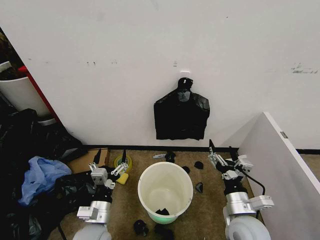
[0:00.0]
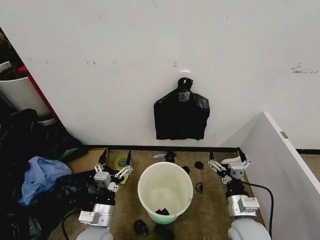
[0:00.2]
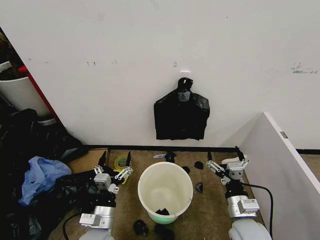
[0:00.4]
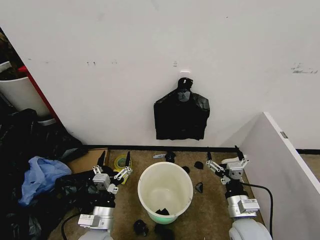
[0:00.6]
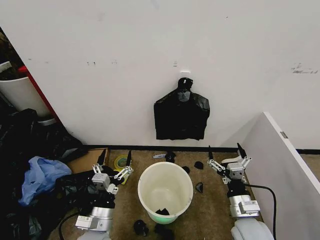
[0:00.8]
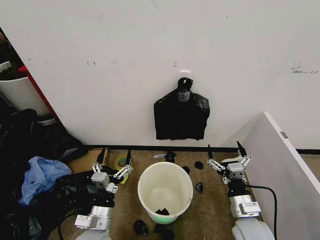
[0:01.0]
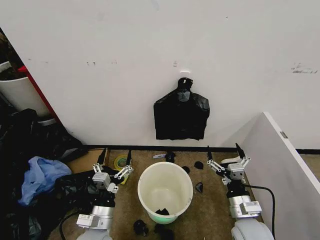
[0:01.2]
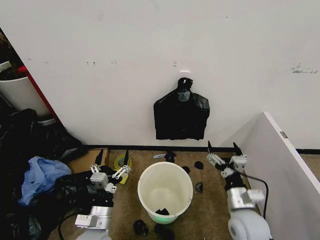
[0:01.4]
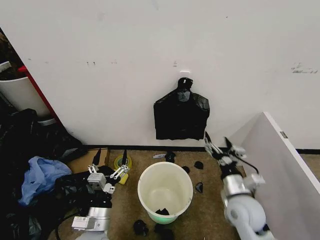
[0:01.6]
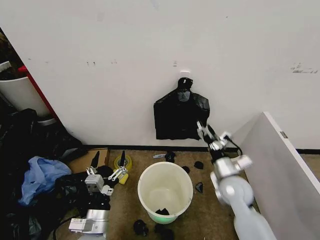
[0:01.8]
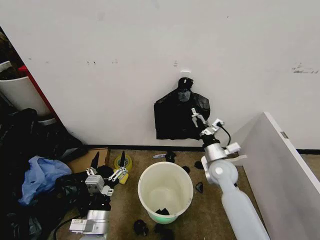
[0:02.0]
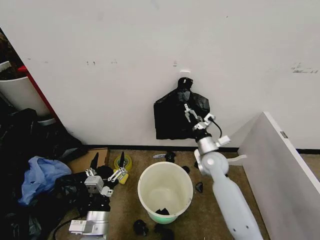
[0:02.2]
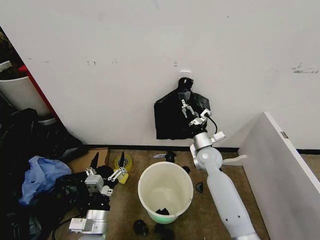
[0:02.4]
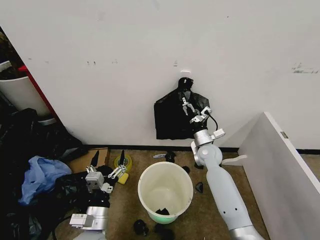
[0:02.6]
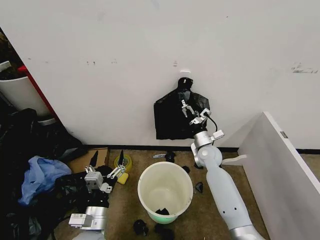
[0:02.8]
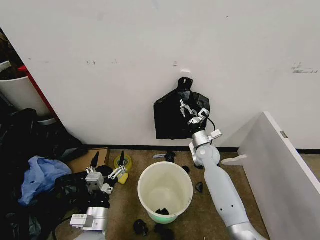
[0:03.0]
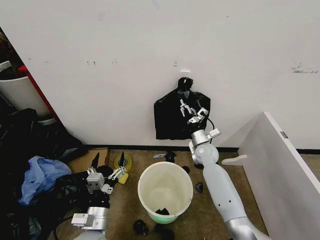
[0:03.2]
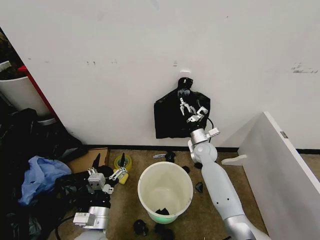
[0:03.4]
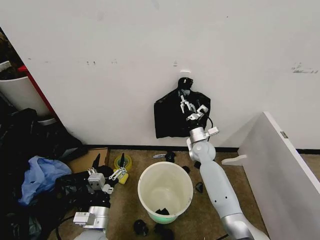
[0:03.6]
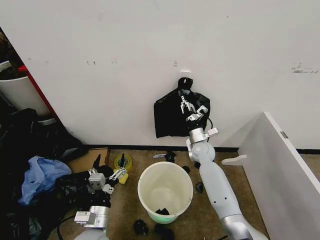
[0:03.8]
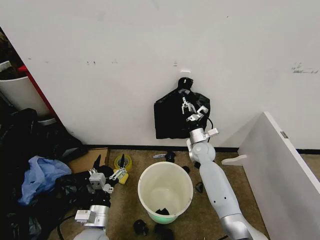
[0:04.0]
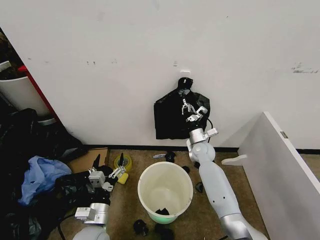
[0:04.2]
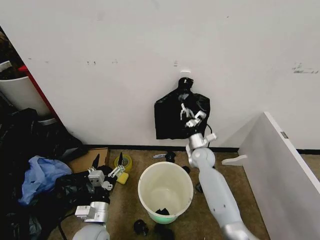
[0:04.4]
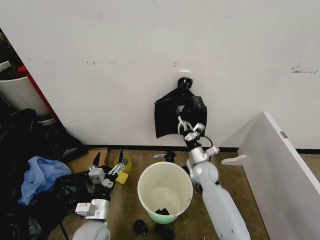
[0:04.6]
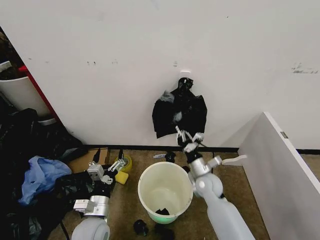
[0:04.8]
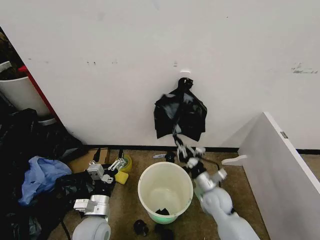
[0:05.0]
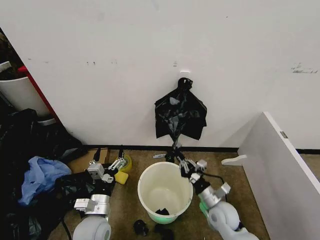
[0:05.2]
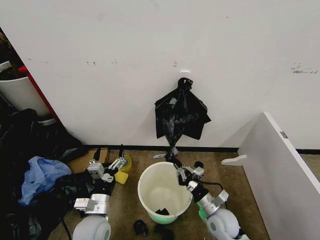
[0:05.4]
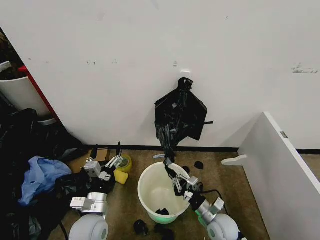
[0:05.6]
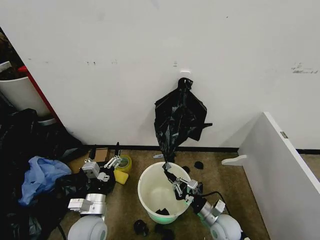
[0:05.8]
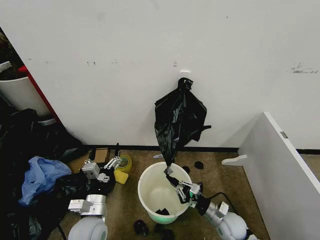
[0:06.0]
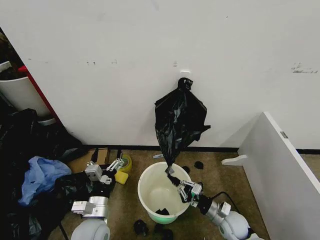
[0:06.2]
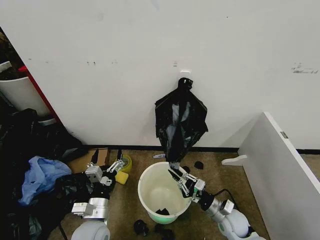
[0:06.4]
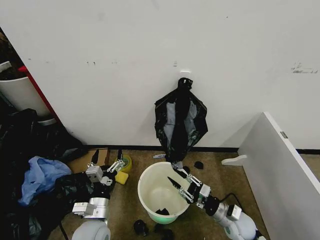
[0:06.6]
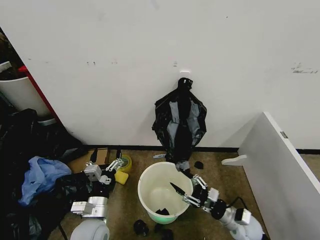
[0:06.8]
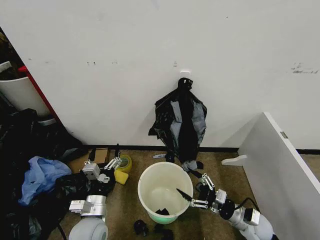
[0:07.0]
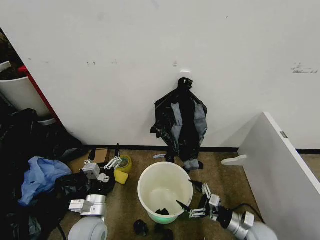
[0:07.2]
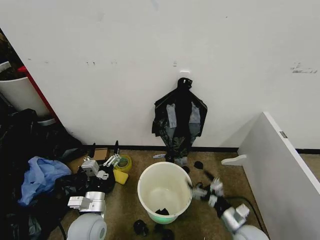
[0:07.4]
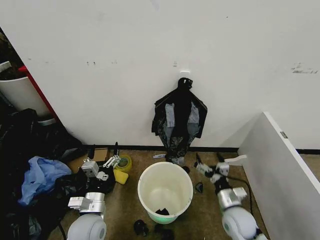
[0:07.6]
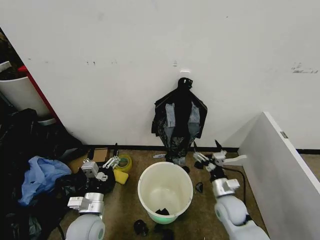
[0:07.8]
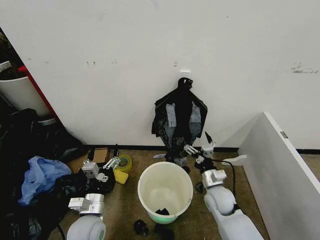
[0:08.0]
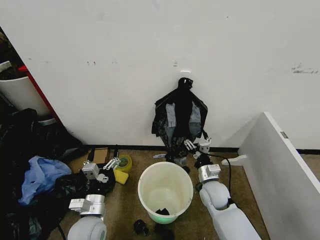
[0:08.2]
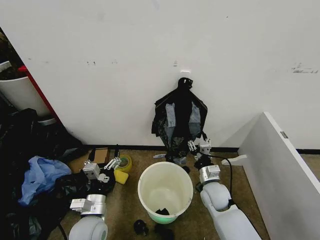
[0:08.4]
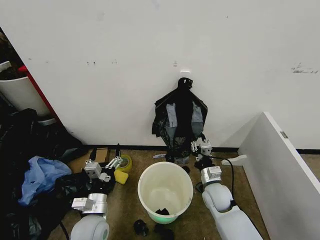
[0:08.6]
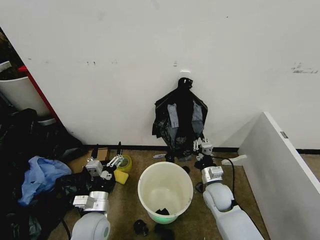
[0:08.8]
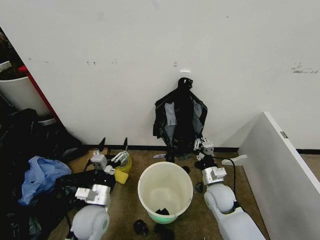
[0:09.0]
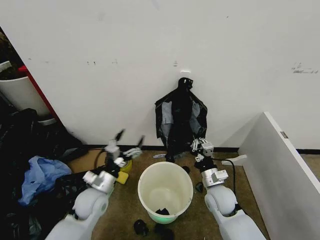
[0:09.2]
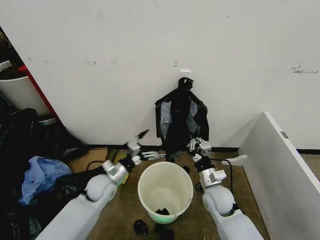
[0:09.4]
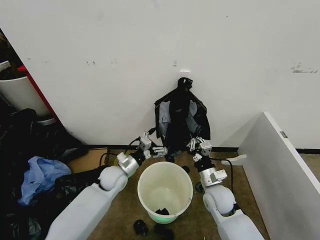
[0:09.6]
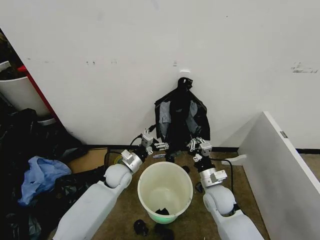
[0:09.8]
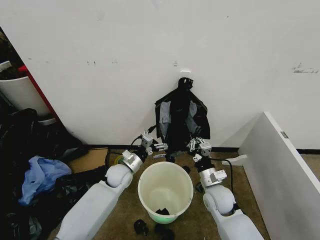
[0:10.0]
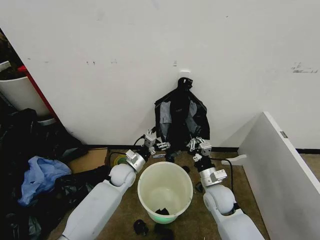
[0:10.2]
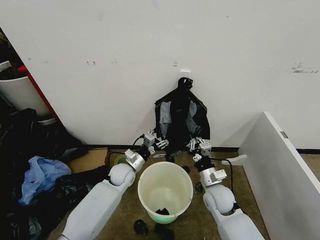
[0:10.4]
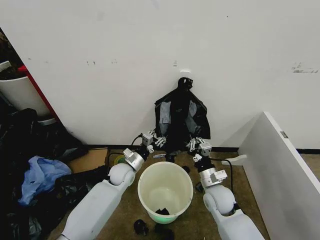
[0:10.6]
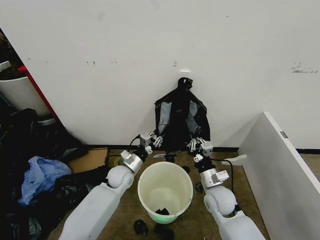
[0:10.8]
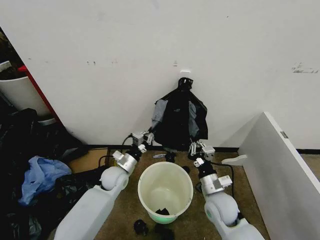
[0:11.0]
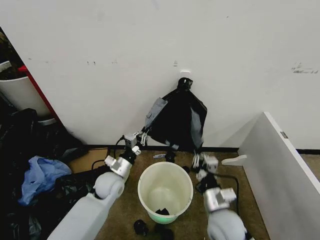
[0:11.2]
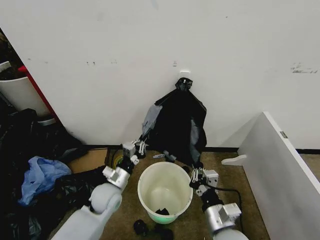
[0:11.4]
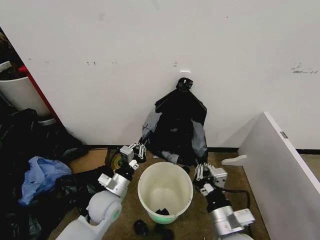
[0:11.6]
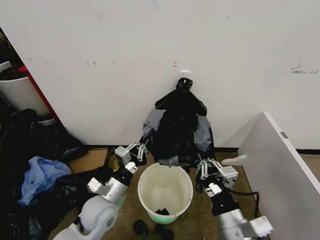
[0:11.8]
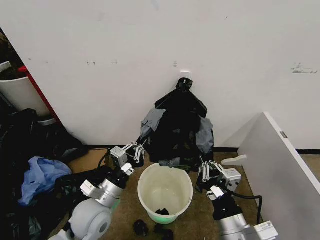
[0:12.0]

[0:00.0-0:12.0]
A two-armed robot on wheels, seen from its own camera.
Task of the whole recording: Place the garbage bag over the trash bin.
0:01.6 to 0:03.0: The right gripper moves forward, roughly 20 cm.
0:03.0 to 0:04.4: The right gripper closes its fingers.
0:04.4 to 0:06.0: The right gripper moves backward and downward, about 25 cm.
0:06.0 to 0:07.6: The right gripper moves upward, roughly 5 cm, and opens its fingers.
0:07.6 to 0:09.0: The right gripper heads forward and to the left, covering approximately 10 cm, and closes.
0:09.0 to 0:10.4: The left gripper goes about 15 cm forward.
0:10.4 to 0:12.0: The grippers both shift backward and upward by approximately 25 cm. The left gripper closes.

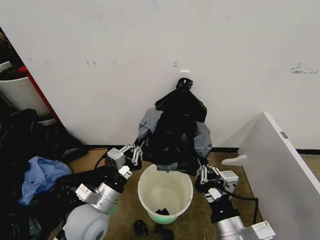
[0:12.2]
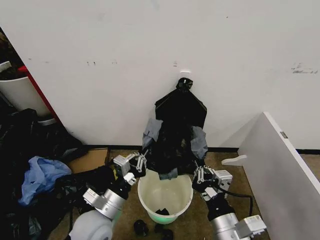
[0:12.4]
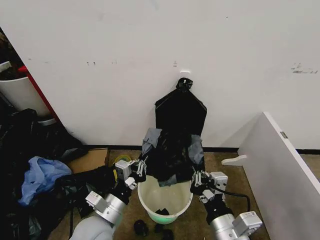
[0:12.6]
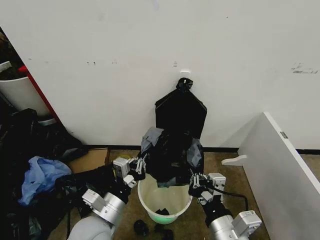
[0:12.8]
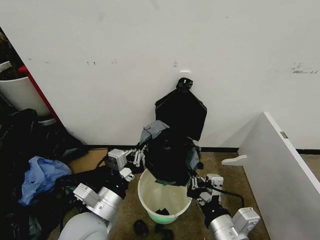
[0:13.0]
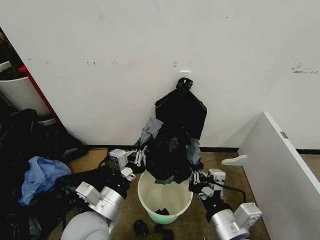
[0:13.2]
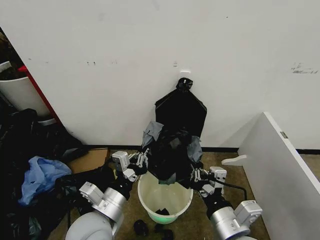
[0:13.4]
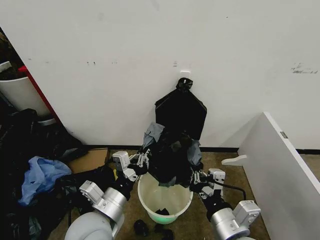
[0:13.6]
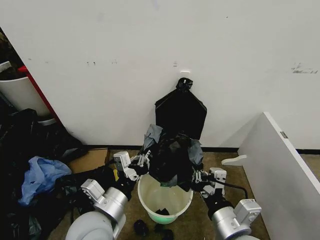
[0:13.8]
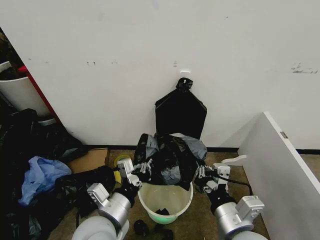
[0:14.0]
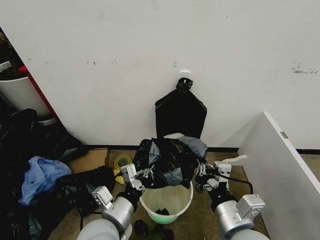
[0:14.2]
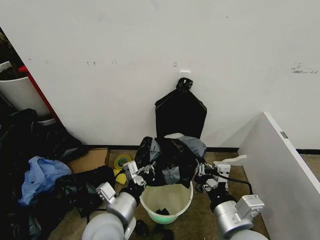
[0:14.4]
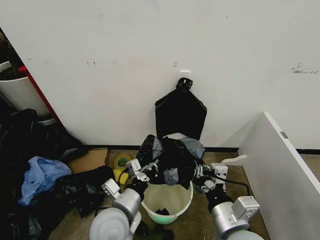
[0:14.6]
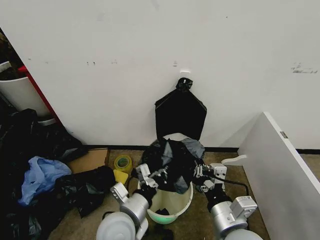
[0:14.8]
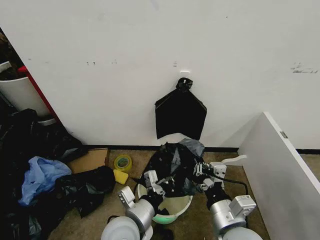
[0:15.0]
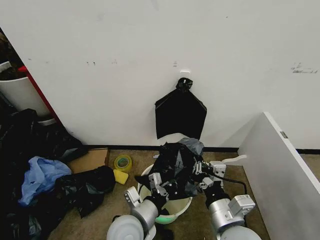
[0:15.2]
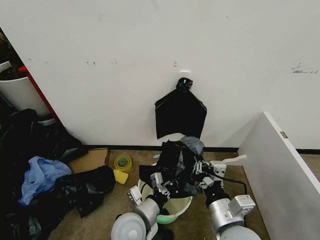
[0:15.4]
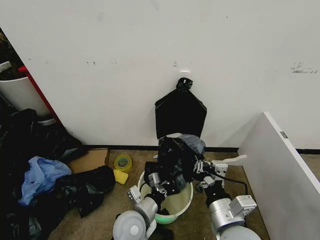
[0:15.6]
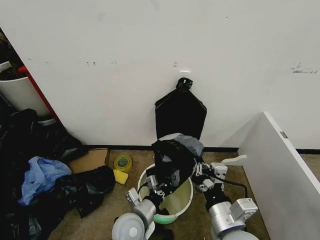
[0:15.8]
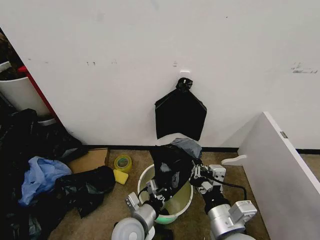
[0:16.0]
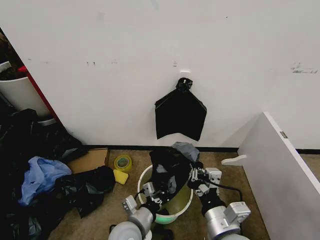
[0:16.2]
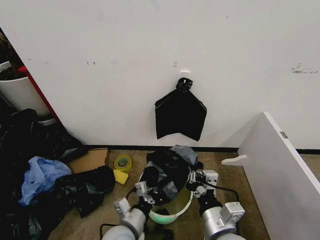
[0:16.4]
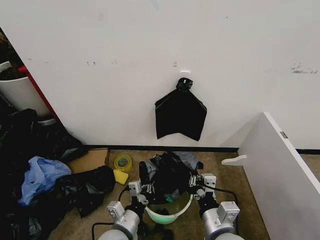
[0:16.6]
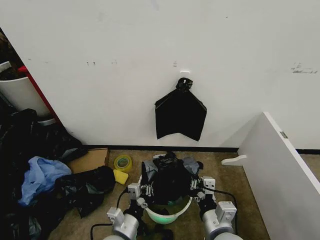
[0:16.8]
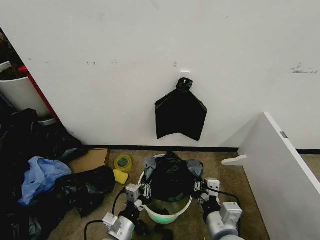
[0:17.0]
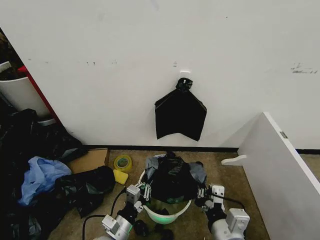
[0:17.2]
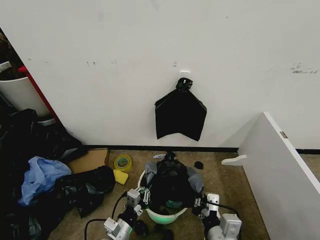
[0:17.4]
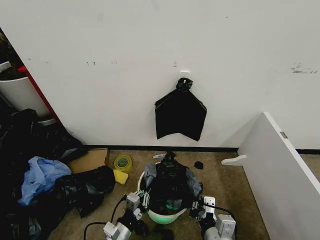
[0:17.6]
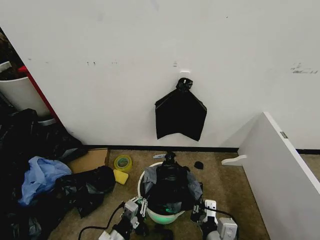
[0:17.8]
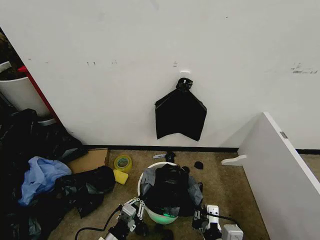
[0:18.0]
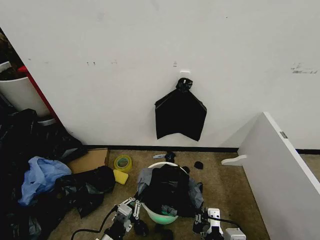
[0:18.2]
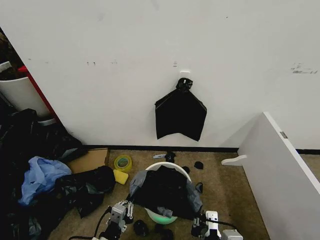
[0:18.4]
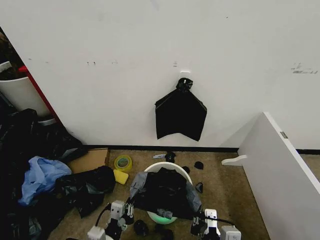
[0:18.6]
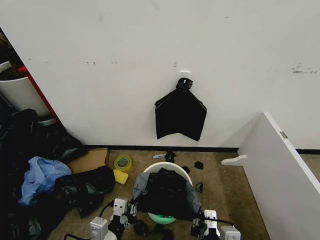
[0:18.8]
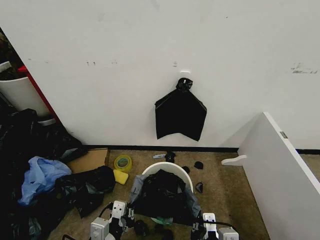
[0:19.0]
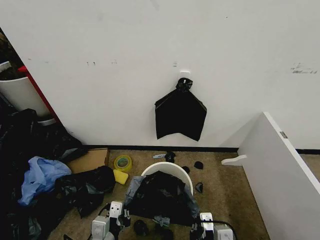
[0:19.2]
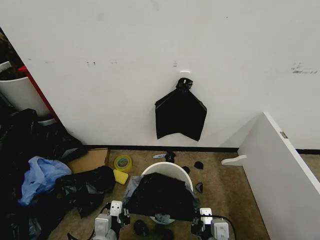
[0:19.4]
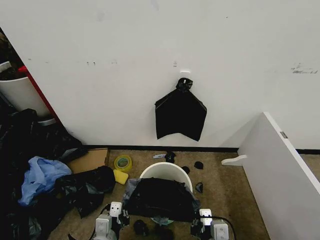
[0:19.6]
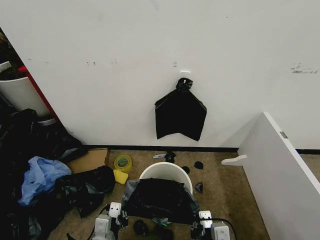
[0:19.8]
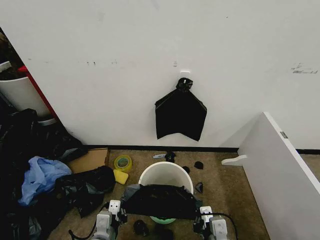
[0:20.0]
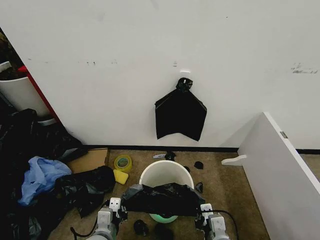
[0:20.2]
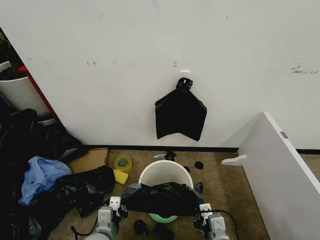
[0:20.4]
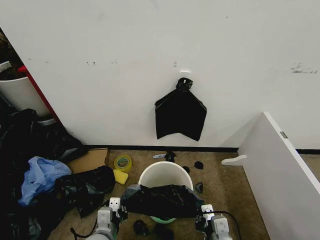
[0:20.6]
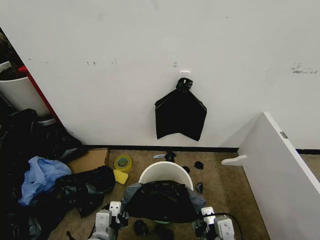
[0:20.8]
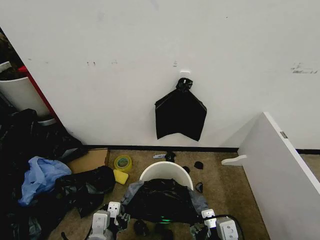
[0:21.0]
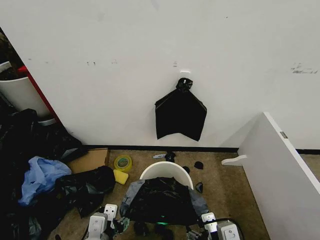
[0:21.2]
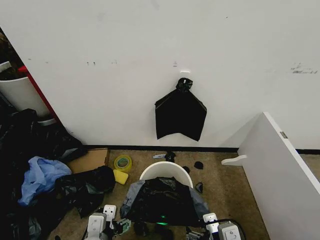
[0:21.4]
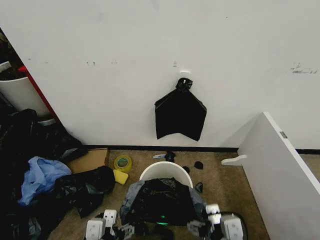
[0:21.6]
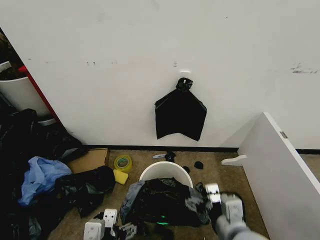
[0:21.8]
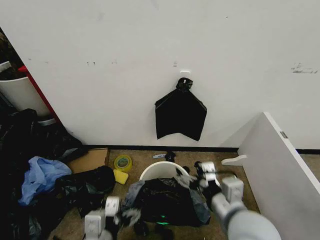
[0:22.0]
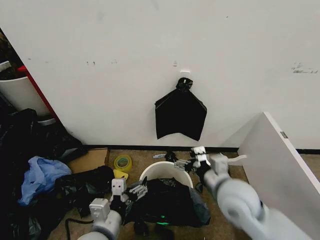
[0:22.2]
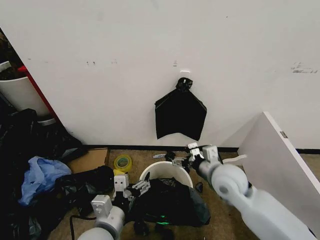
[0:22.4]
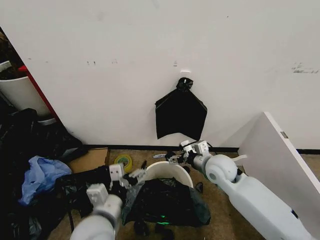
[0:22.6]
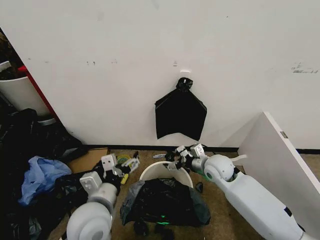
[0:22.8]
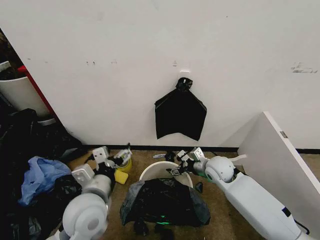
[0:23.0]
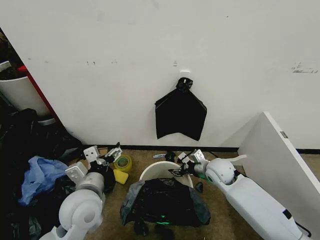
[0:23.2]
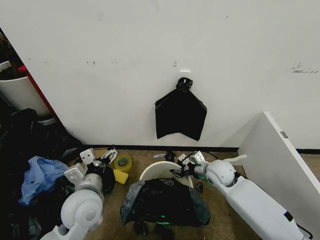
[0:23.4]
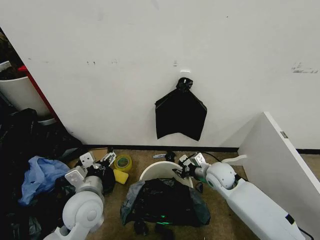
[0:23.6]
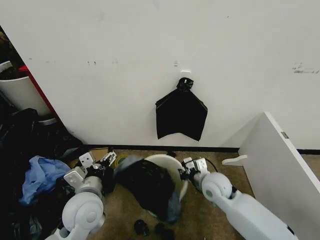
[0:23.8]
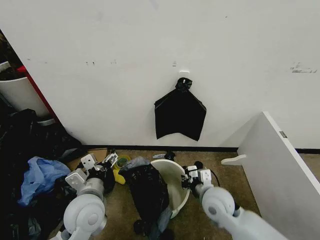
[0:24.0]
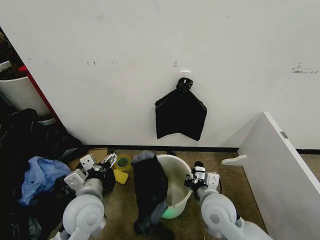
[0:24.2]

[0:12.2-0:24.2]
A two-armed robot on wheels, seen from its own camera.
Task of the whole recording: Place the garbage bag over the trash bin.
0:12.2 to 0:13.8: The left gripper shifts by roughly 5 cm.
0:13.8 to 0:15.2: The left gripper goes approximately 10 cm downward and to the right.
0:15.2 to 0:16.6: The left gripper is displaced downward by approximately 5 cm.
0:16.6 to 0:18.2: The right gripper goes some 5 cm backward. Meanwhile the left gripper moves to the left, downward and backward, about 10 cm.
0:18.2 to 0:19.8: The left gripper moves upward, about 5 cm.
0:19.8 to 0:21.2: The two grippers go roughly 5 cm upward. The right gripper opens; the left gripper opens.
0:21.2 to 0:22.6: The right gripper is displaced forward by approximately 30 cm. The left gripper shifts roughly 5 cm forward.
0:22.6 to 0:24.2: The right gripper moves backward, about 10 cm, and closes; the left gripper is displaced forward by about 5 cm.
